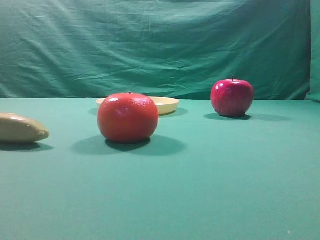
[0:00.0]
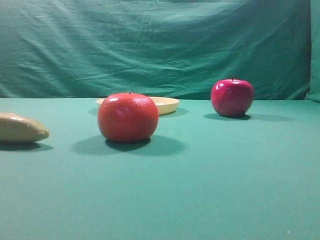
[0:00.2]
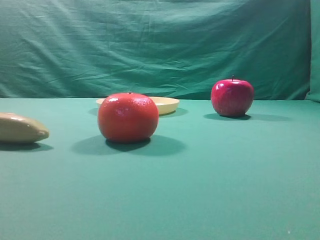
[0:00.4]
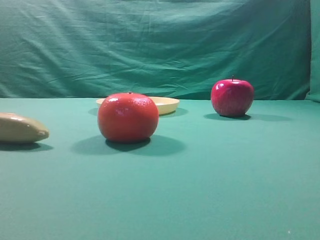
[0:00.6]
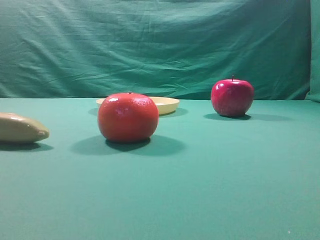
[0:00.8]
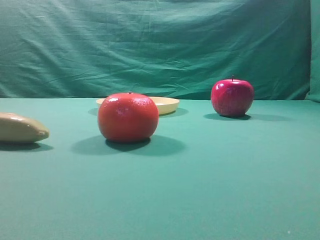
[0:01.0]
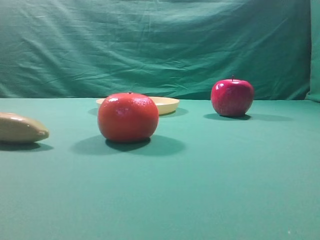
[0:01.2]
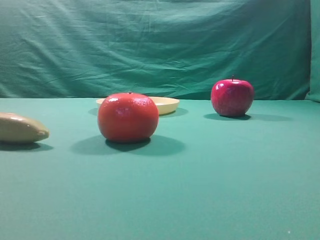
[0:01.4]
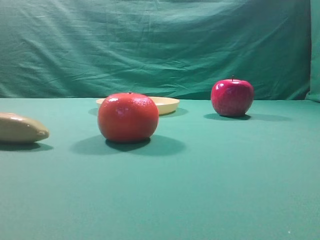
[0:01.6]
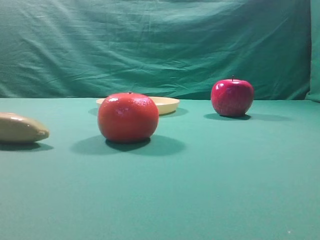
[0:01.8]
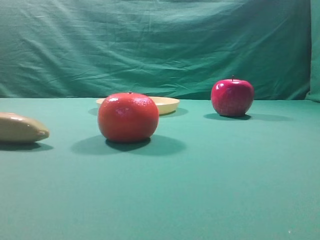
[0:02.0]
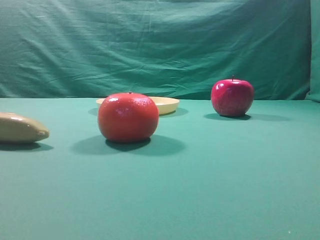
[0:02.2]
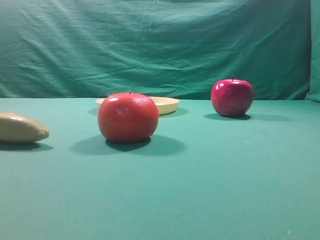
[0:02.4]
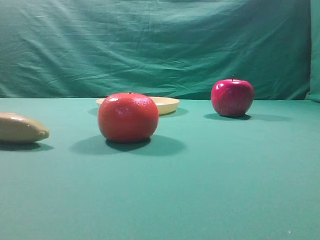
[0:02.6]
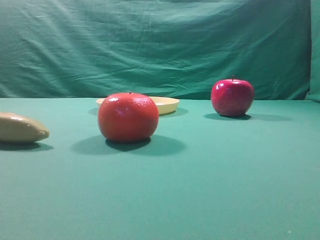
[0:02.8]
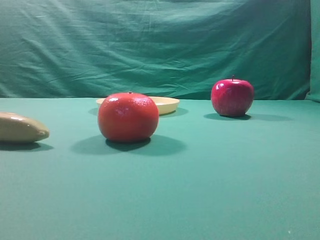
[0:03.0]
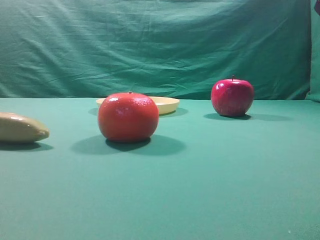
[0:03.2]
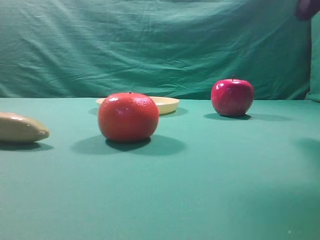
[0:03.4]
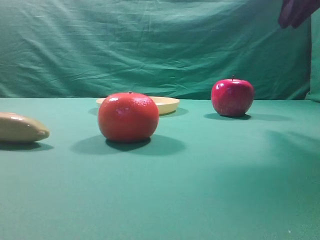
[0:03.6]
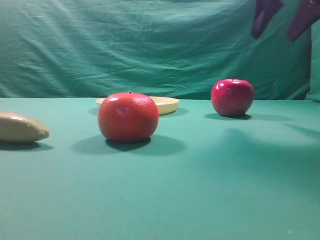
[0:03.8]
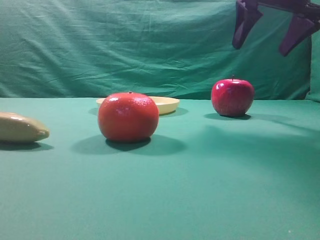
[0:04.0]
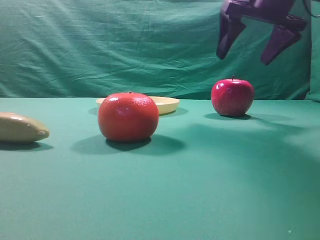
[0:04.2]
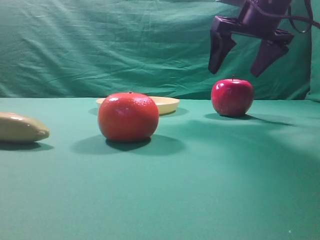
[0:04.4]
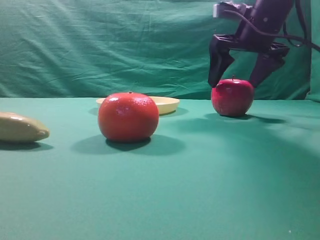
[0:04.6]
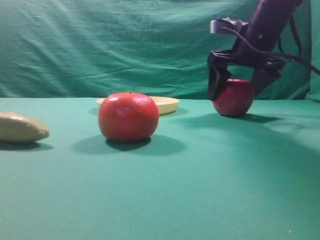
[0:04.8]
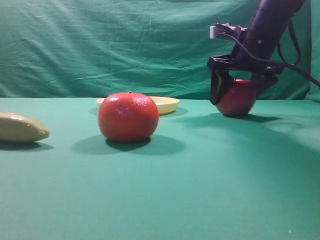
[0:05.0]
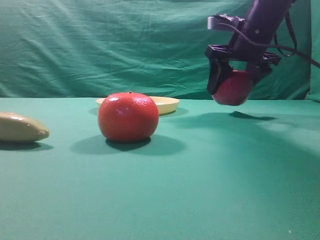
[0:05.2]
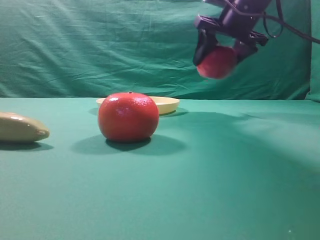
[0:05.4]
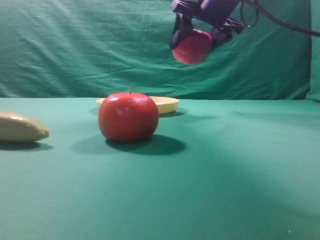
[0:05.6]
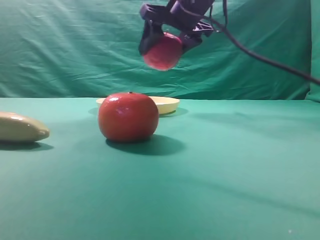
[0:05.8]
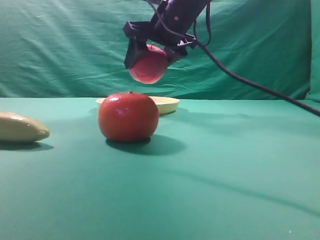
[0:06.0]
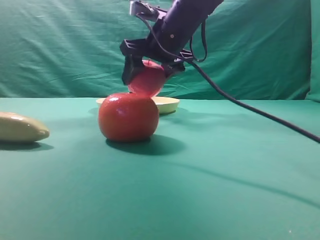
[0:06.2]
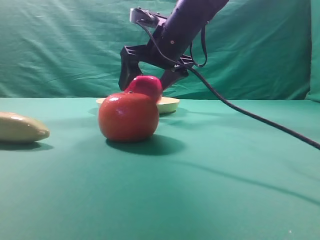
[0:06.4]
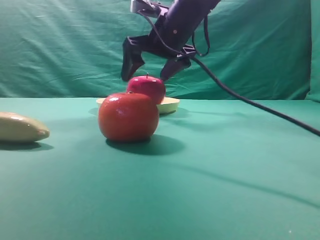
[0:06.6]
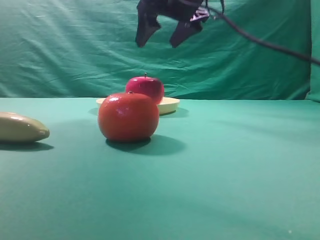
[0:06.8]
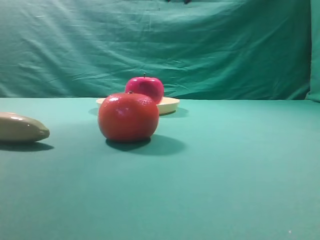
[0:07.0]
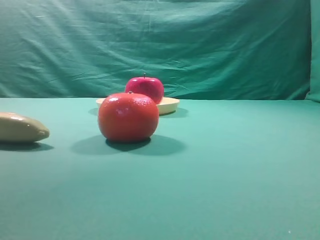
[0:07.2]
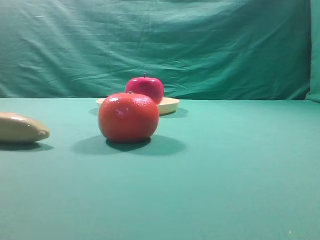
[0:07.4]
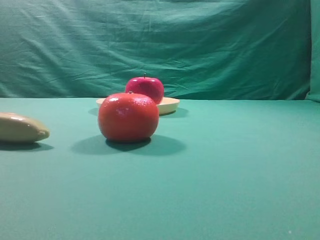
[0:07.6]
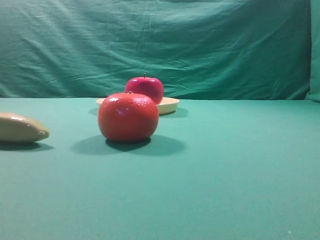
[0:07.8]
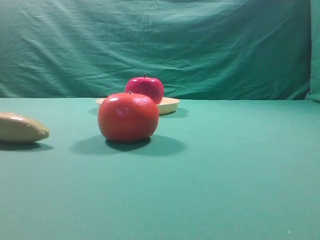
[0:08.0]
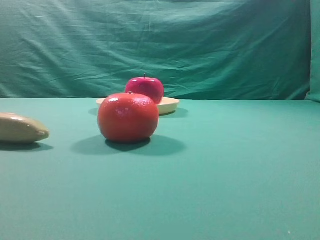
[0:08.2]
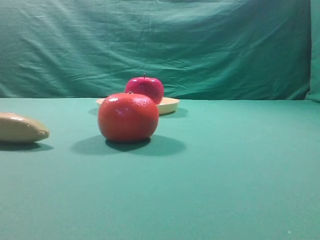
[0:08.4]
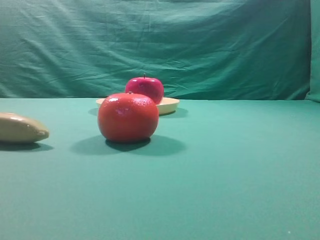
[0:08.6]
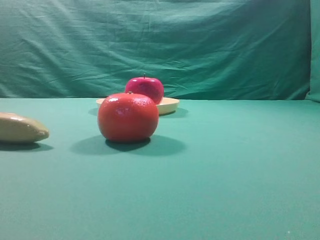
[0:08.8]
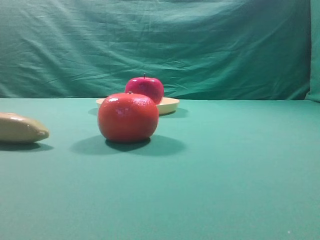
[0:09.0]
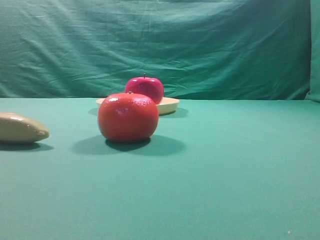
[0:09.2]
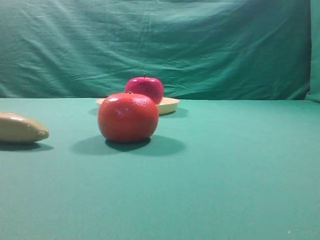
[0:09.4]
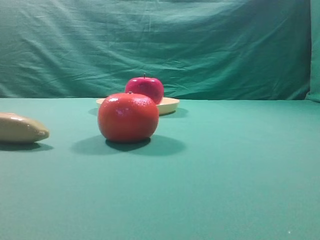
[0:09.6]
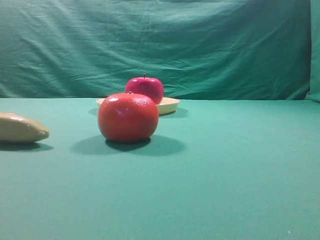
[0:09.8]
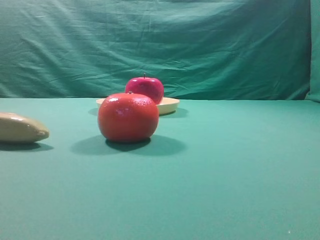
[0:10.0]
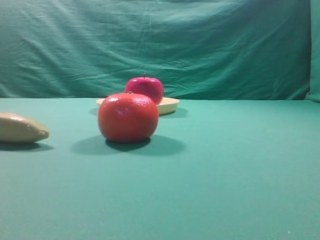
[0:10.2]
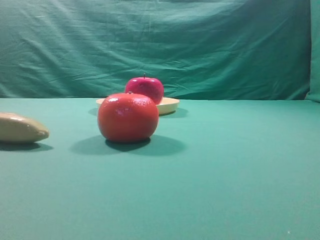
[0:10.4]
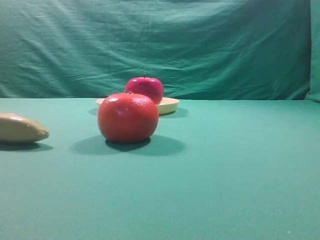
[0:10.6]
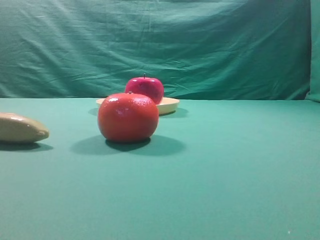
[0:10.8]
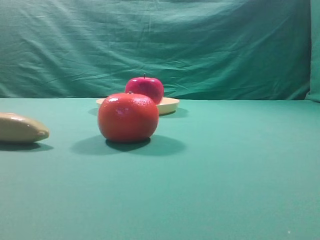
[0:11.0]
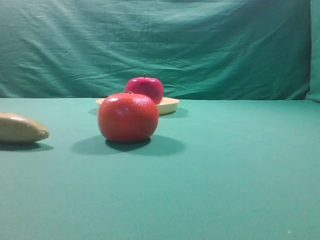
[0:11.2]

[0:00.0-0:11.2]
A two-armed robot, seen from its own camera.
Task of the whole recording: grasp the apple and place it into the yellow plate.
Step, 0:00.0 to 0:05.2: Grasp the fruit that can keep the doctor away.
Step, 0:05.4 to 0:06.6: Place the picked object into the yellow plate.

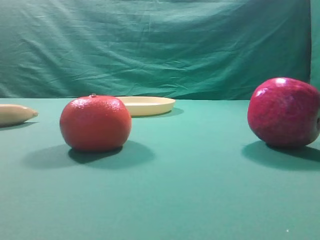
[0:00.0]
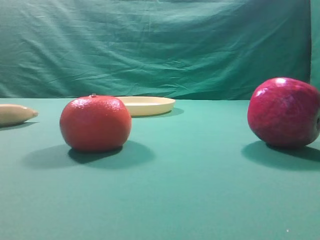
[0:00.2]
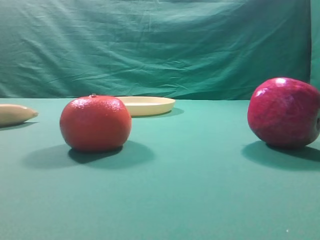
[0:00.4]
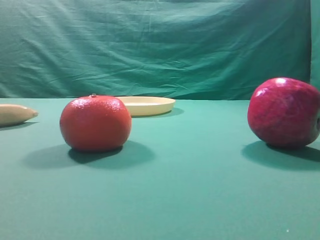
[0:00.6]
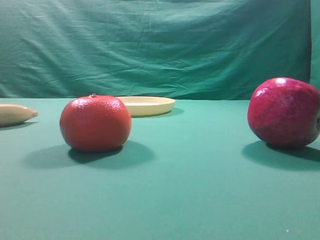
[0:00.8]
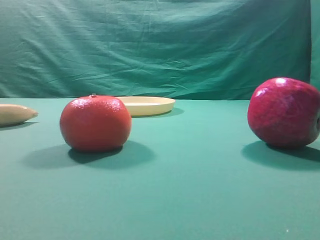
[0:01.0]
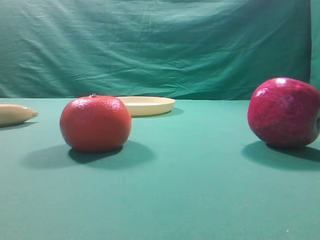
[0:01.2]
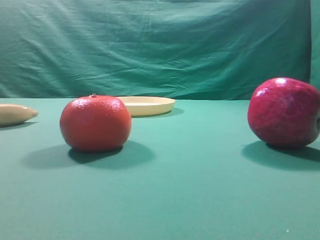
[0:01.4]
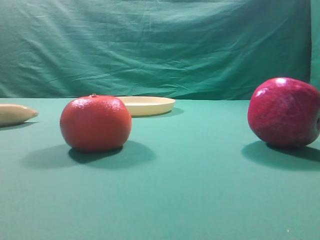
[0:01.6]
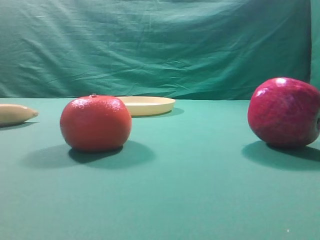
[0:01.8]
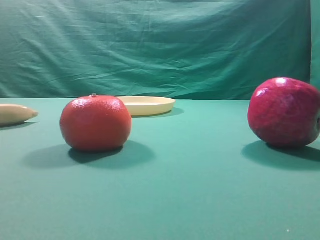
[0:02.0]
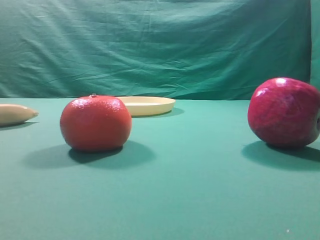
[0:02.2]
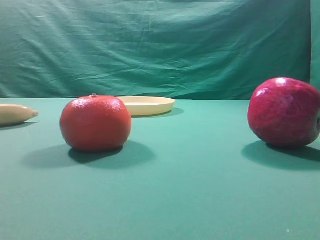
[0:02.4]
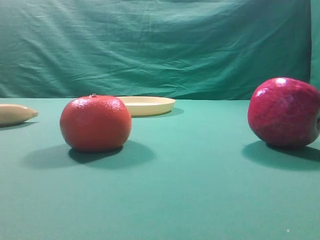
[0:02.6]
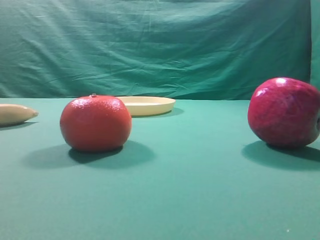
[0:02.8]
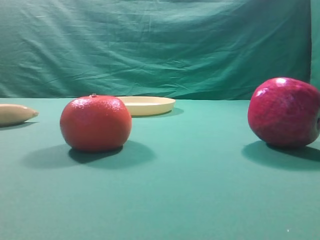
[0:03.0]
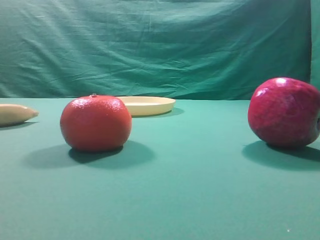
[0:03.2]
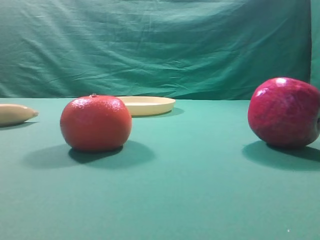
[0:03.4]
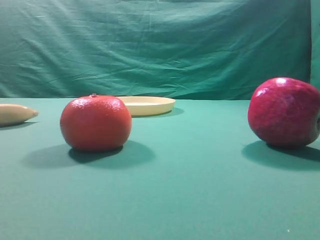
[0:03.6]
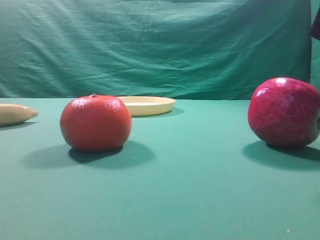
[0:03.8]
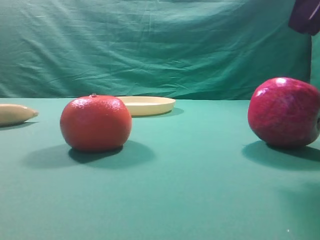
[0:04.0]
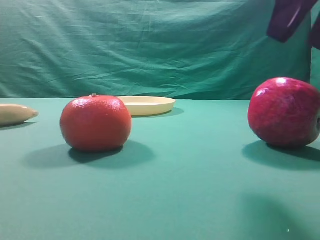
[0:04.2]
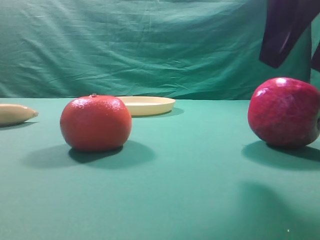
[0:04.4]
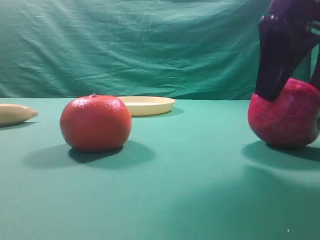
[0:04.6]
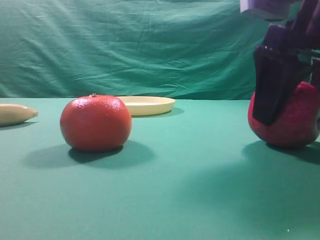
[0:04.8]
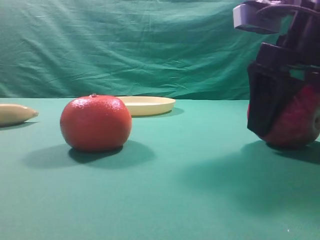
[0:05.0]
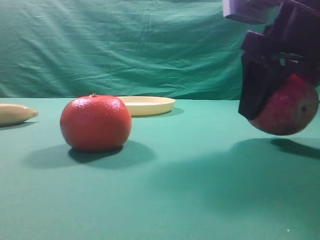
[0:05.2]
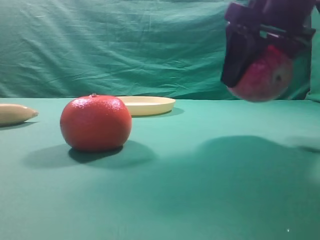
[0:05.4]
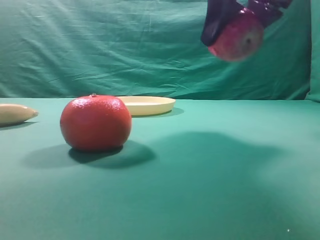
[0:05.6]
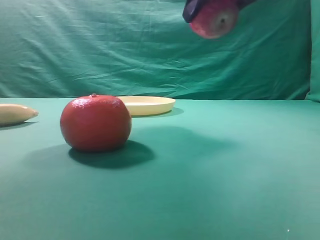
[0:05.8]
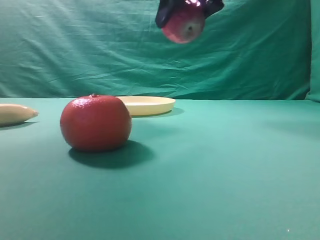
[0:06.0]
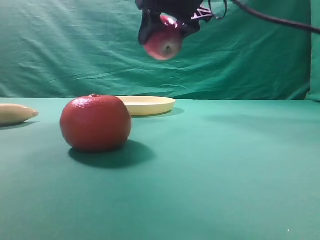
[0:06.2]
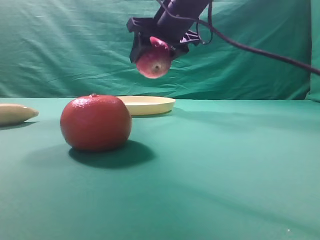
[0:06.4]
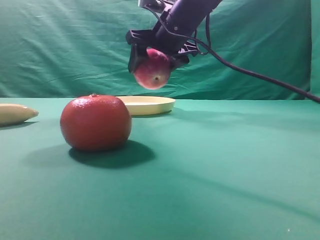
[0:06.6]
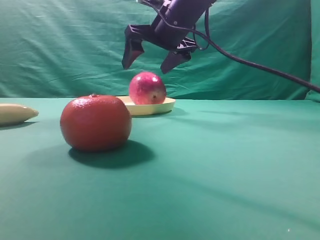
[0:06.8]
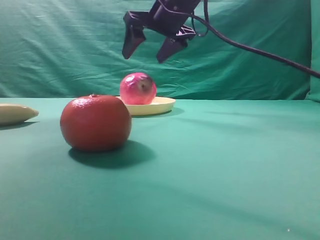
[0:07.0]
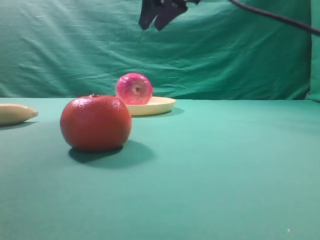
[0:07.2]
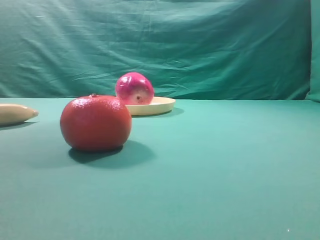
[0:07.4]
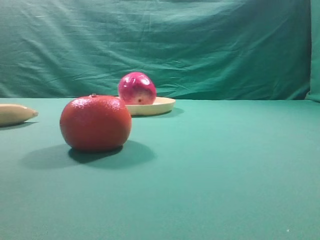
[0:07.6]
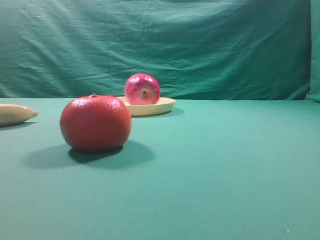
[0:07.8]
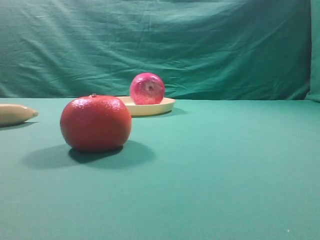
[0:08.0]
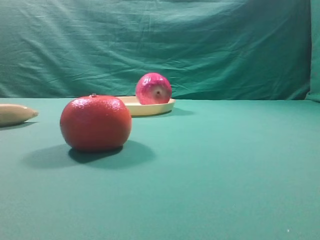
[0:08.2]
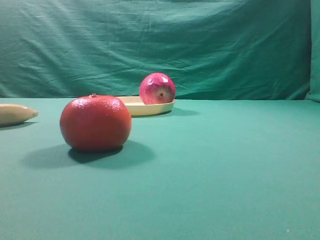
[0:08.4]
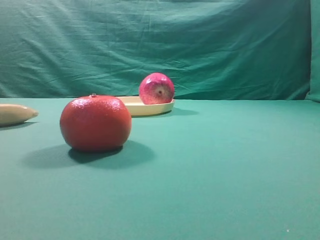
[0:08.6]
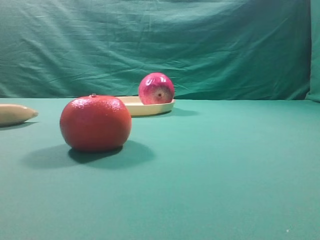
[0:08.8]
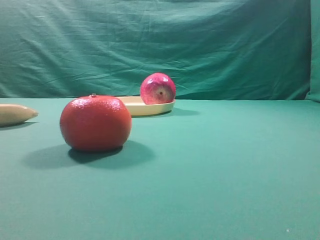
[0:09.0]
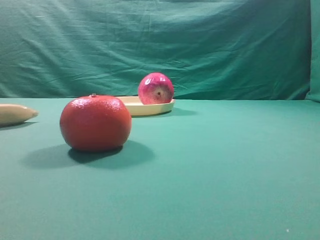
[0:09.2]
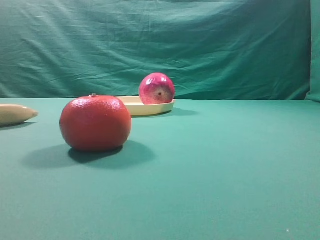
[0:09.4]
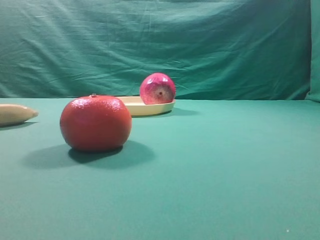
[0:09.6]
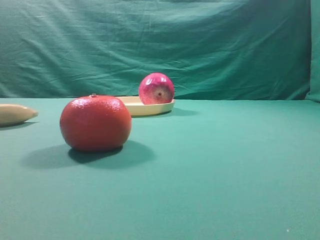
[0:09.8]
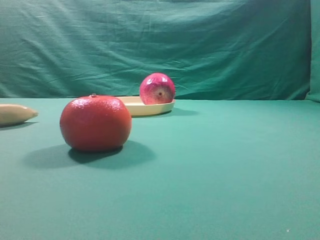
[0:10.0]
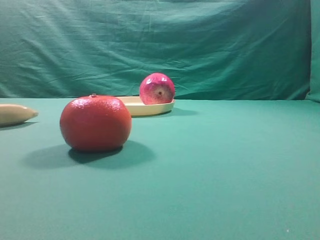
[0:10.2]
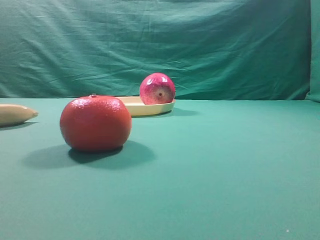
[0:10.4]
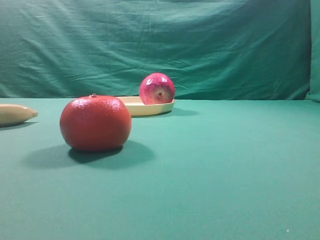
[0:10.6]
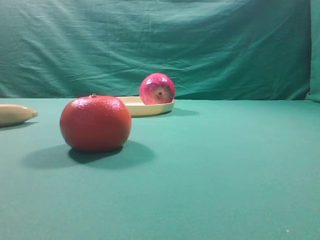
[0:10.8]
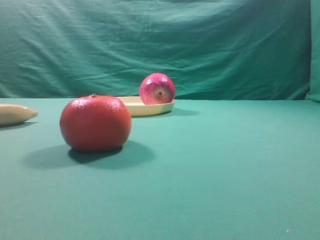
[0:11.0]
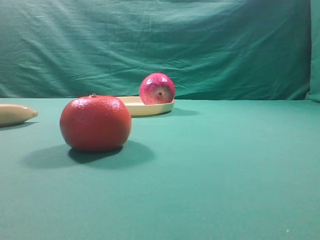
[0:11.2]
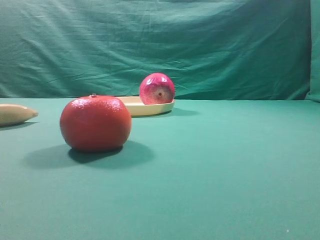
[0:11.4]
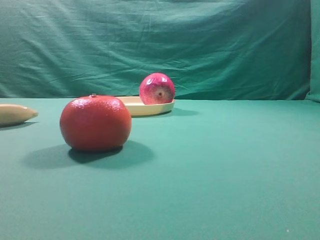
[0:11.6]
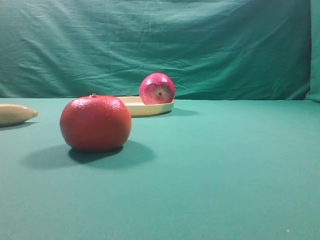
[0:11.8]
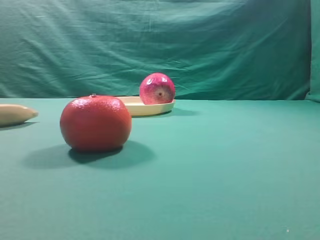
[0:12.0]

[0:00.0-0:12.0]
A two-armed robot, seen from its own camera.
Task of the whole recording: grasp the apple and place it into the yellow plate.
Step, 0:00.0 to 0:05.2: Grasp the fruit that can keep the doctor away.
Step, 0:05.6 to 0:07.0: Place the picked object into the yellow plate.
